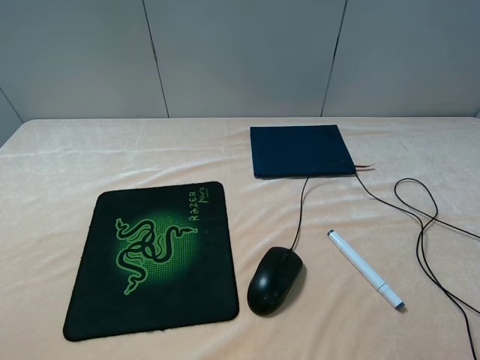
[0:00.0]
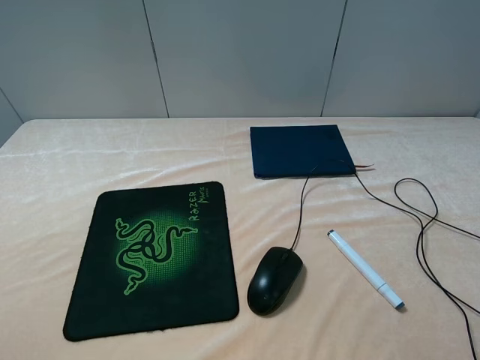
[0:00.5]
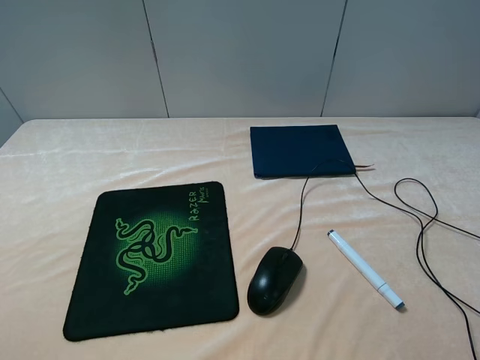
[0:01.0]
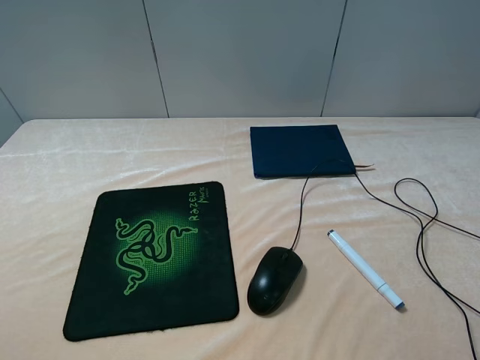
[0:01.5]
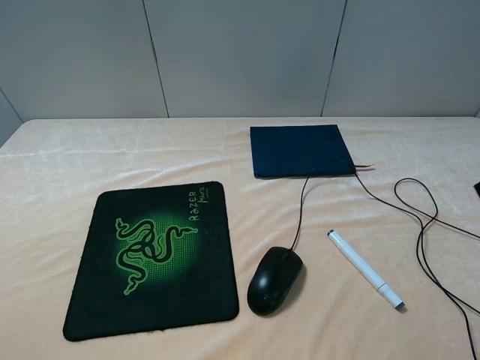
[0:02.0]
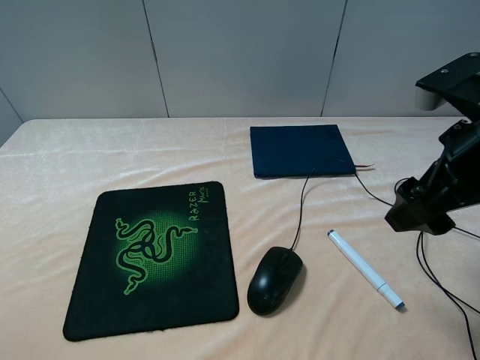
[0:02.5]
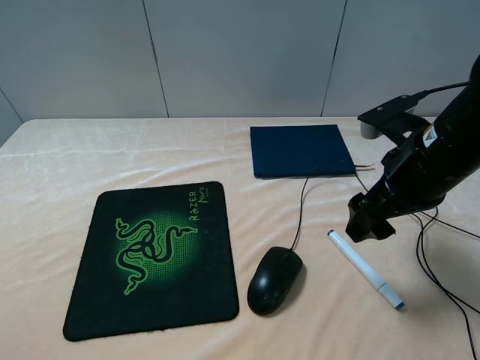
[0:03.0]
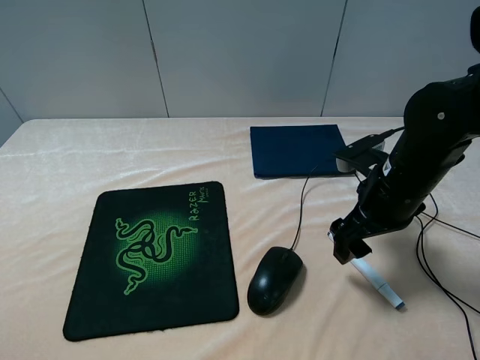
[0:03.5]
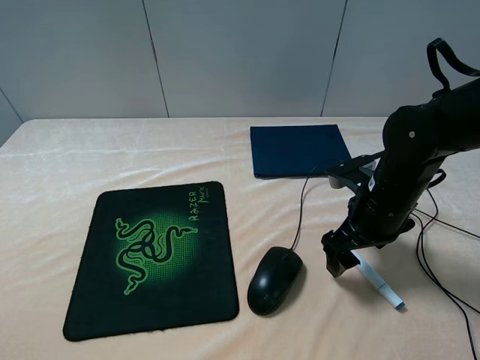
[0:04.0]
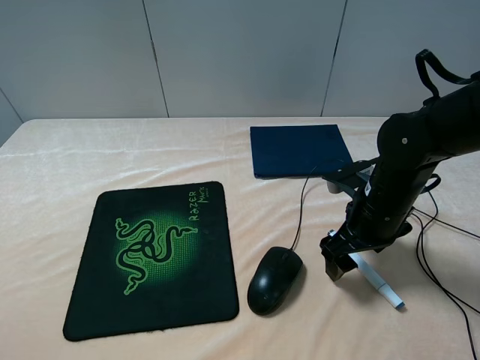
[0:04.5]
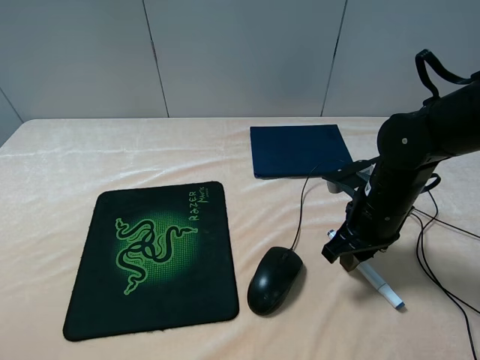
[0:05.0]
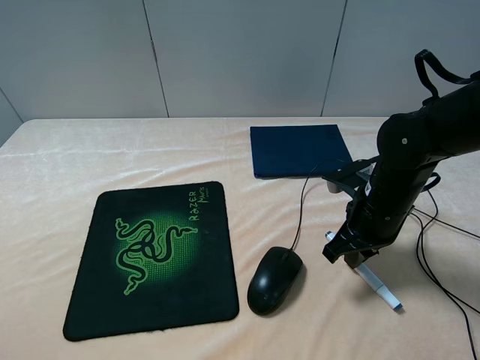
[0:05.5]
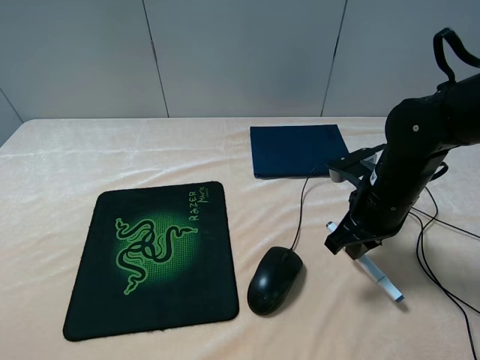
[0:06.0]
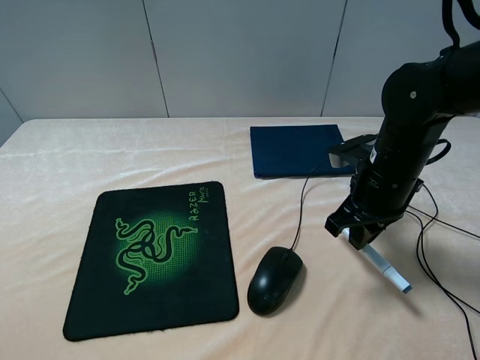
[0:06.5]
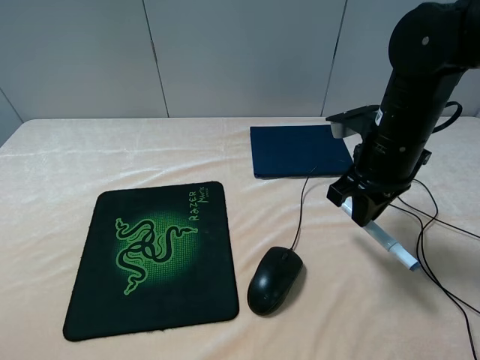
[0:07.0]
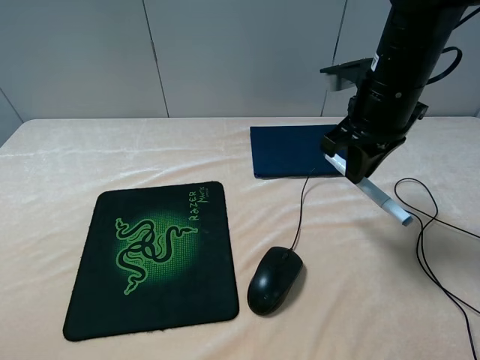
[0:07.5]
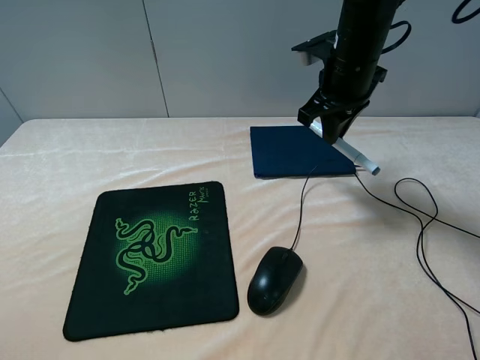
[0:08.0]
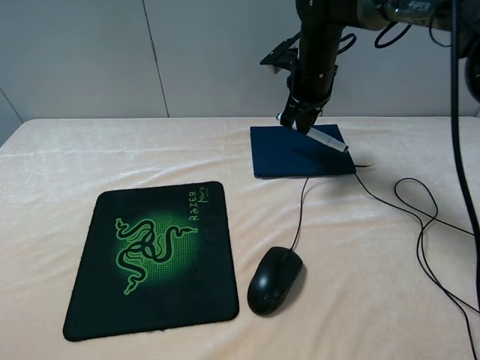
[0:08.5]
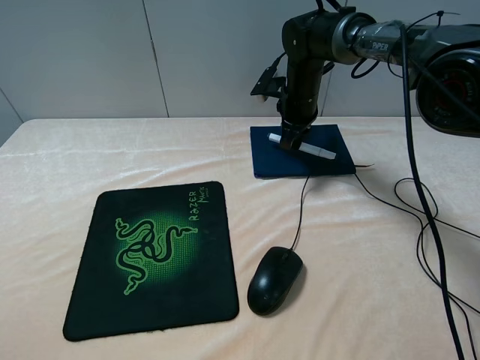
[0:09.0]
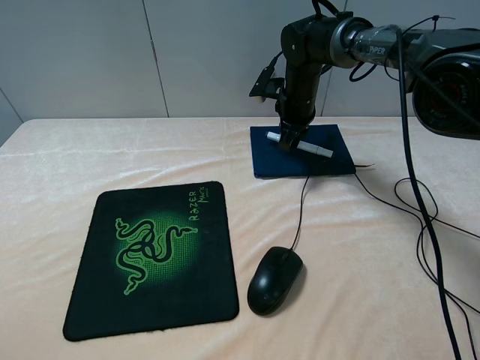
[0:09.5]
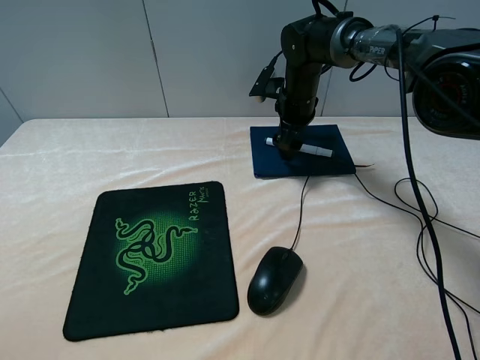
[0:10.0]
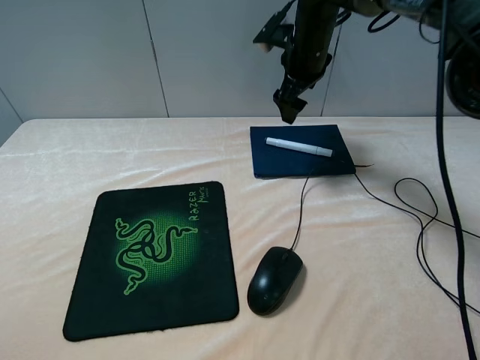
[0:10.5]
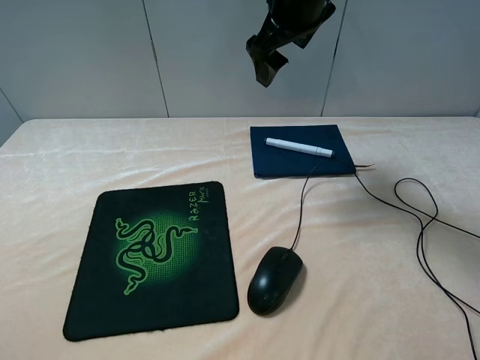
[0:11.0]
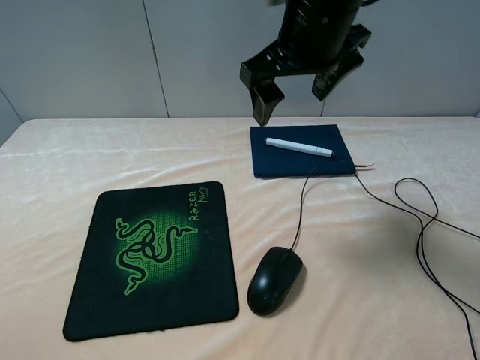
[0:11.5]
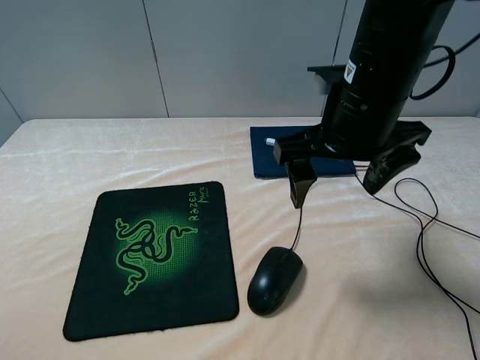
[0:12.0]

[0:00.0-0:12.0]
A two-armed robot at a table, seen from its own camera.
Step, 0:00.0 to 0:05.0: Grasp the marker with the right gripper.
Step, 0:05.5 to 0:10.0: Place the marker on the notebook with the right gripper.
0:02.0 to 0:04.0: The right gripper travels downward, forward and to the left by roughly 25 cm.
0:04.0 to 0:06.0: The right gripper closes.
0:06.0 to 0:08.0: The right gripper is displaced forward and upward by roughly 15 cm.
0:08.0 to 0:10.0: The right gripper moves downward and forward, roughly 15 cm, and opens.
0:10.0 to 0:12.0: The right gripper moves backward and upward, roughly 25 cm.

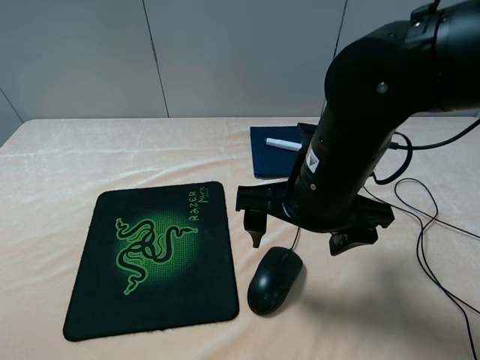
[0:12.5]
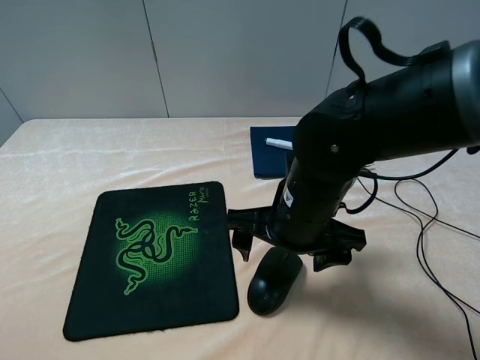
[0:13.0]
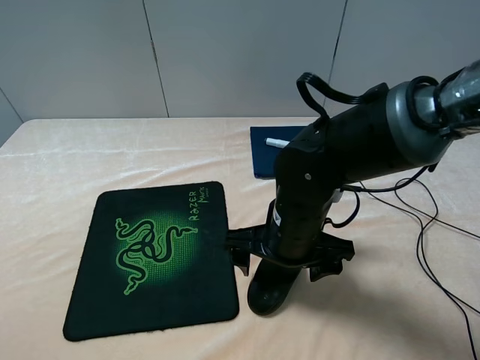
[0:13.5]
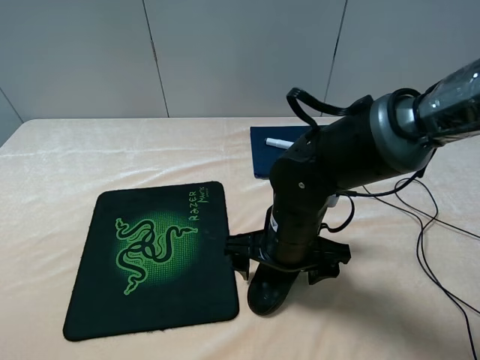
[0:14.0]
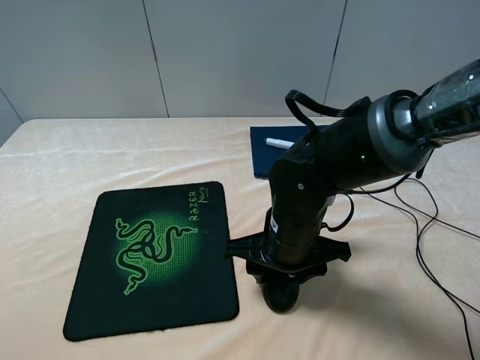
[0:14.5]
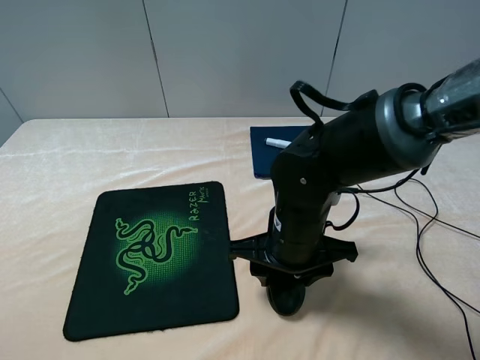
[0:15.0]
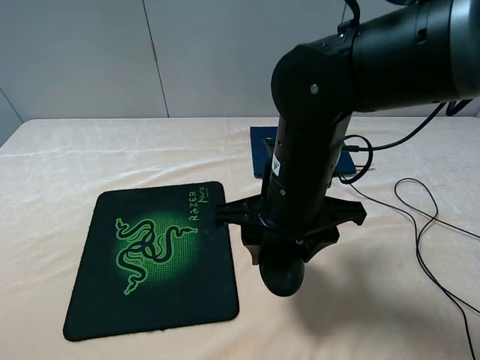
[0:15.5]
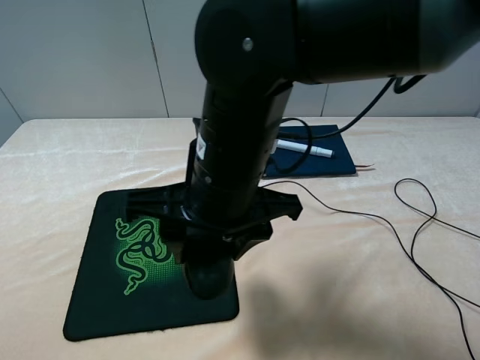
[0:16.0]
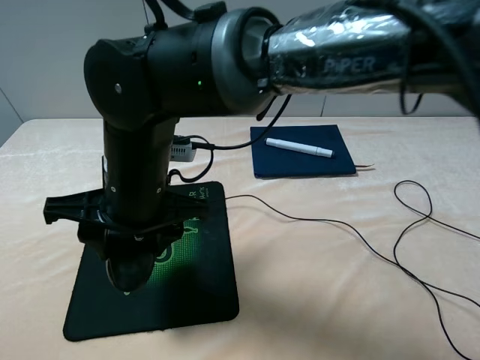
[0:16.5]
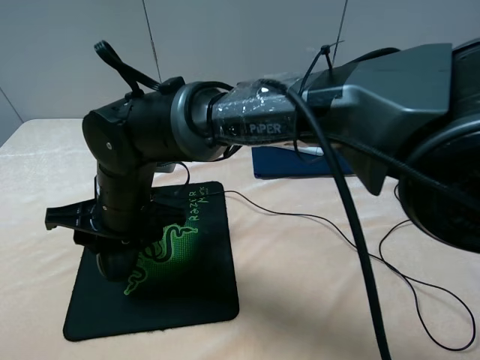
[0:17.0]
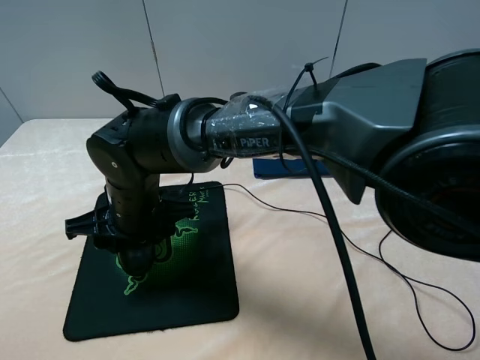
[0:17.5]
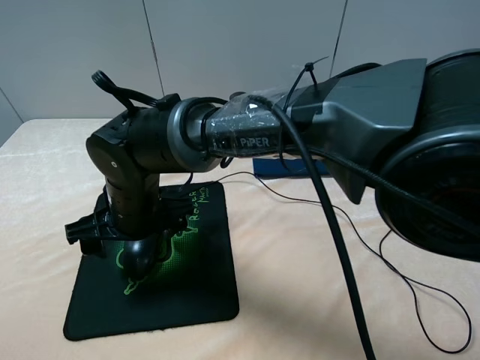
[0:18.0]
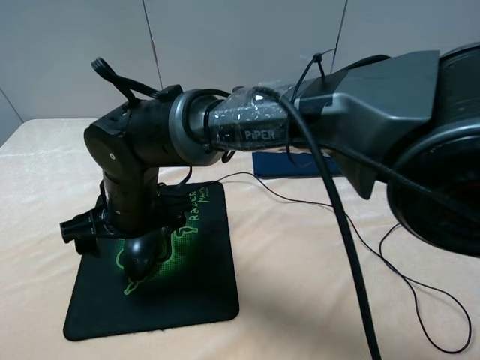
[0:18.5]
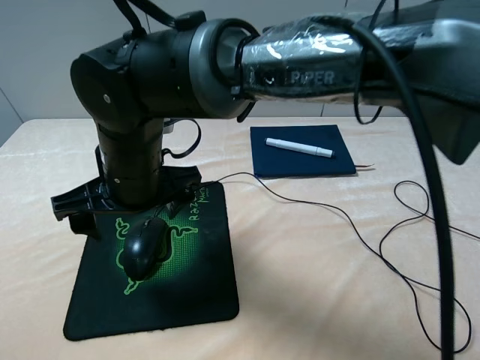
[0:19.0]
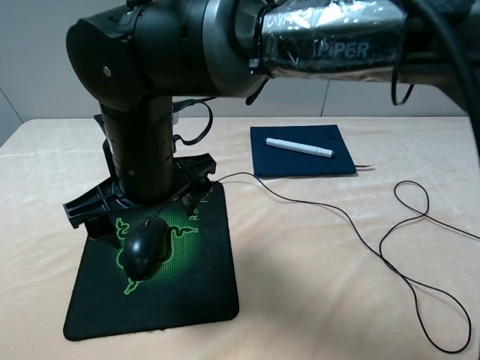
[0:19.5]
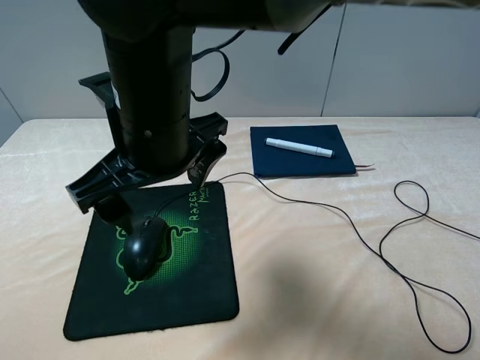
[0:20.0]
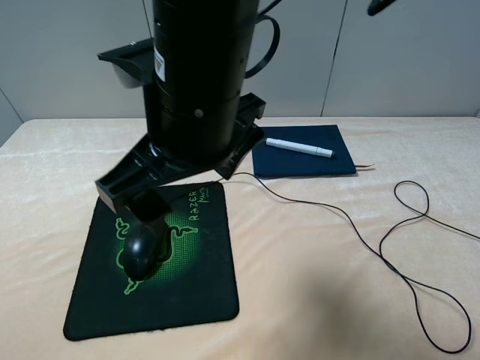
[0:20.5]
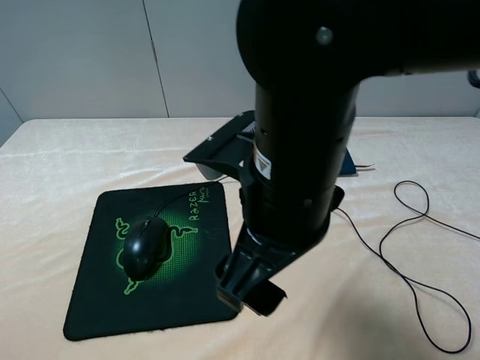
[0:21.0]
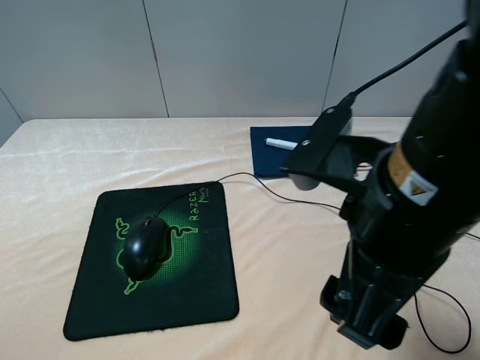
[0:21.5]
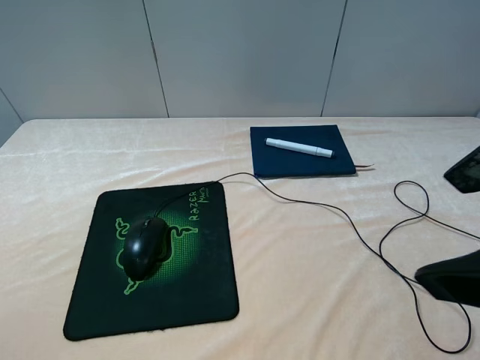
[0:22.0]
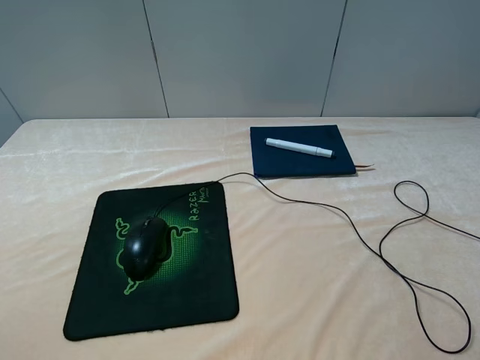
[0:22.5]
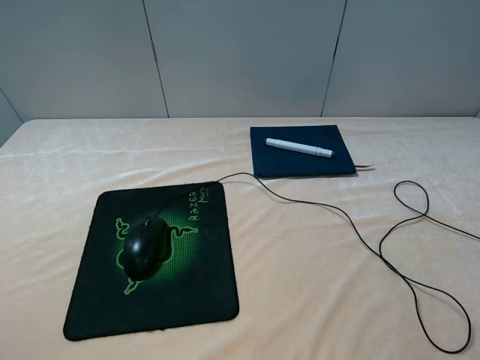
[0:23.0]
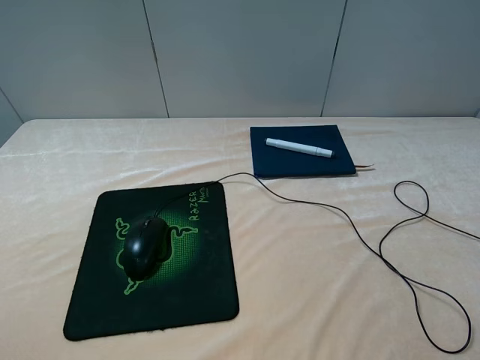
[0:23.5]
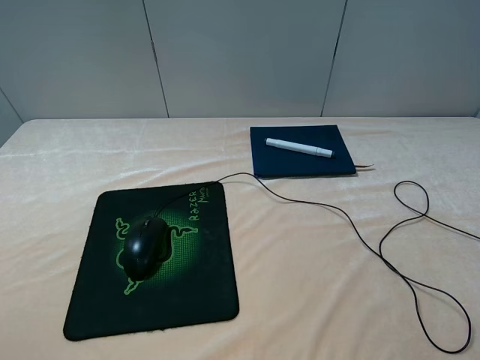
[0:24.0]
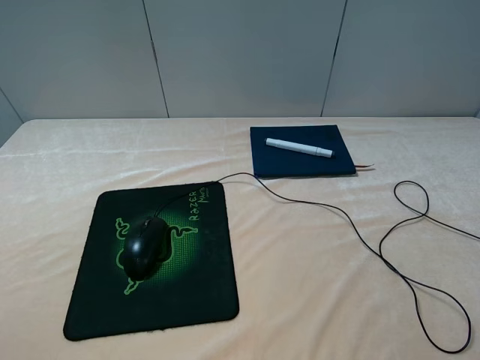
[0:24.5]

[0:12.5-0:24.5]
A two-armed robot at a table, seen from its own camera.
Step, 0:12.5 to 0:14.5: Grasp the mouse with the right gripper.
Step, 0:15.0 to 0:18.5: Place the mouse on the mouse pad with the right gripper.
0:12.5 to 0:14.5: The right gripper is displaced downward by some 10 cm, and closes up.
0:14.5 to 0:16.5: The right gripper shifts about 20 cm to the left and upward.
0:16.5 to 0:18.5: The right gripper moves roughly 5 cm, and opens up.
0:18.5 to 0:20.5: The right gripper is displaced upward and to the right by roughly 20 cm.
0:20.5 to 0:22.5: The right gripper goes some 30 cm to the right and backward.
